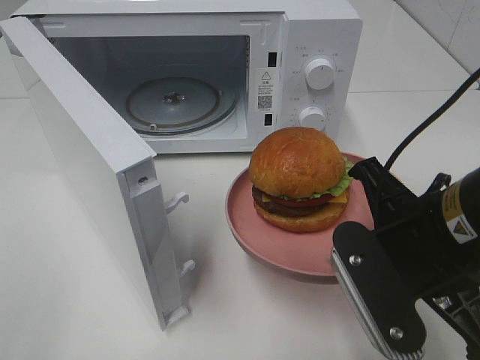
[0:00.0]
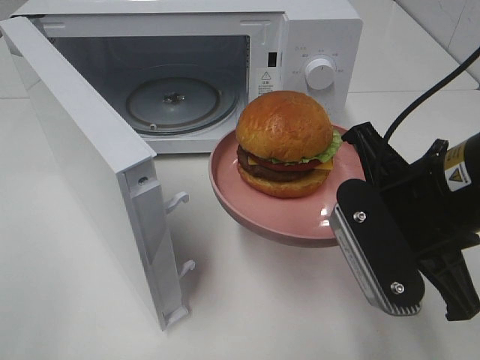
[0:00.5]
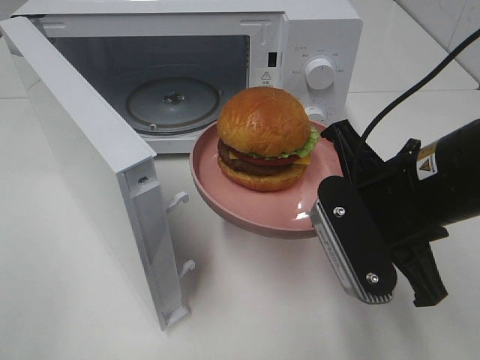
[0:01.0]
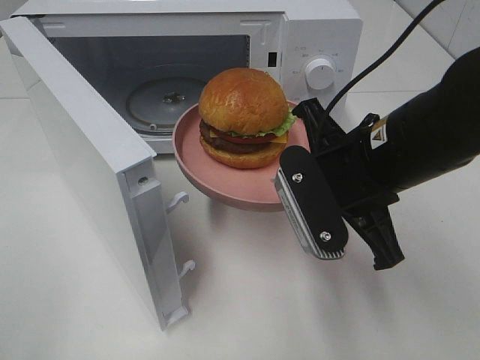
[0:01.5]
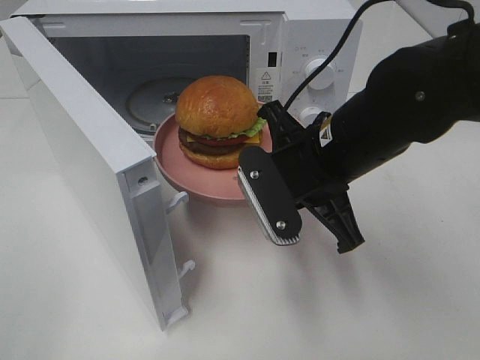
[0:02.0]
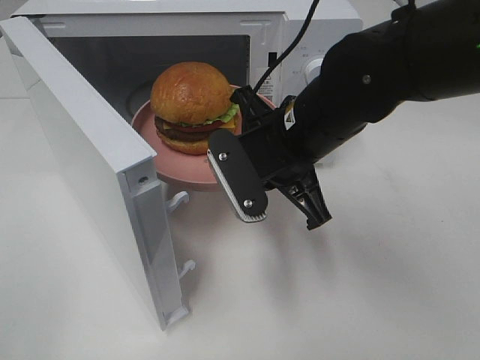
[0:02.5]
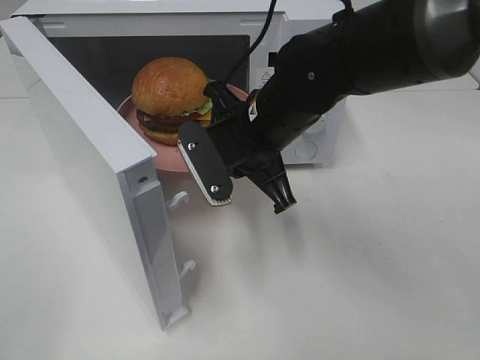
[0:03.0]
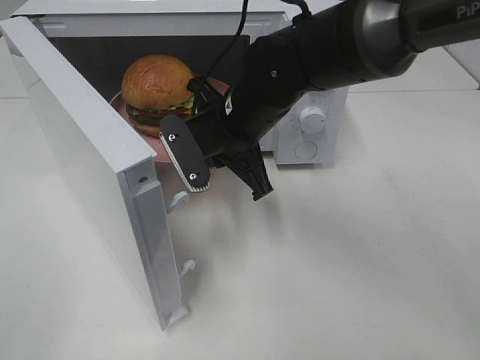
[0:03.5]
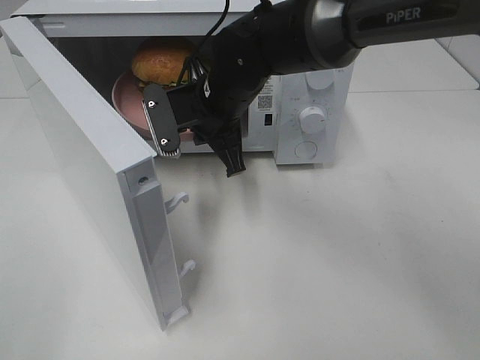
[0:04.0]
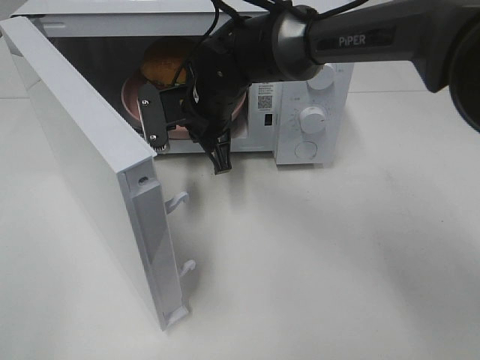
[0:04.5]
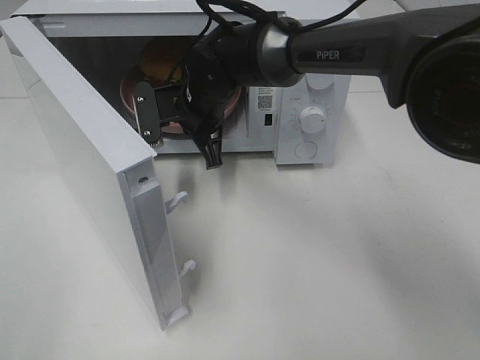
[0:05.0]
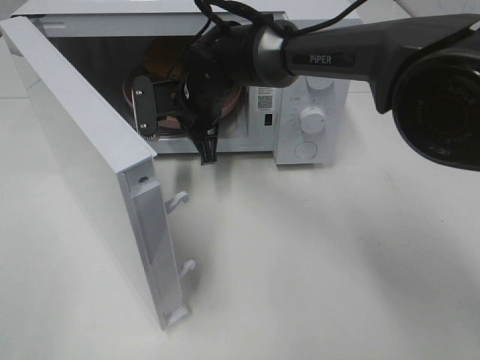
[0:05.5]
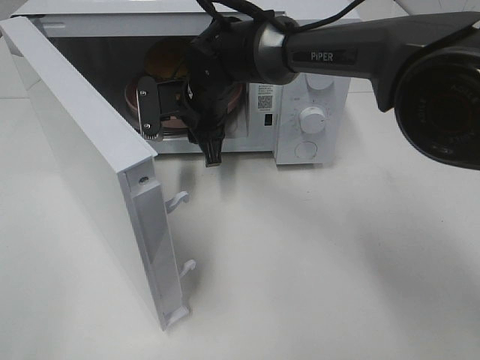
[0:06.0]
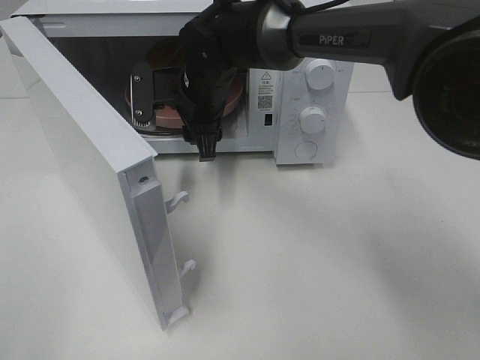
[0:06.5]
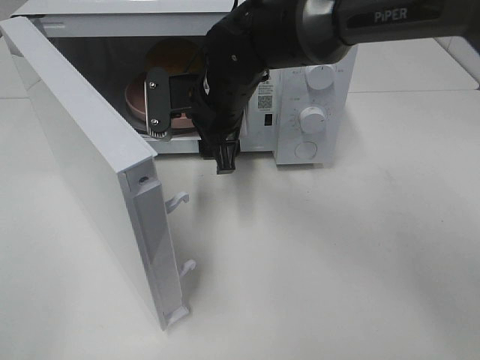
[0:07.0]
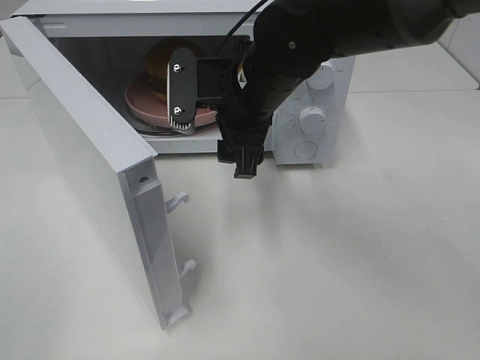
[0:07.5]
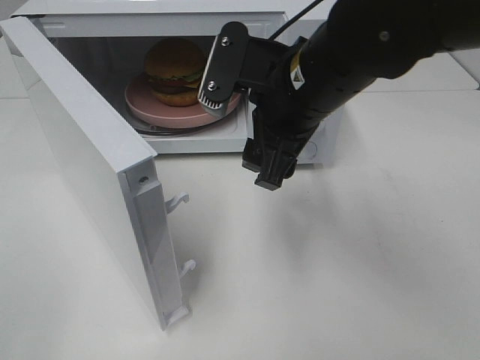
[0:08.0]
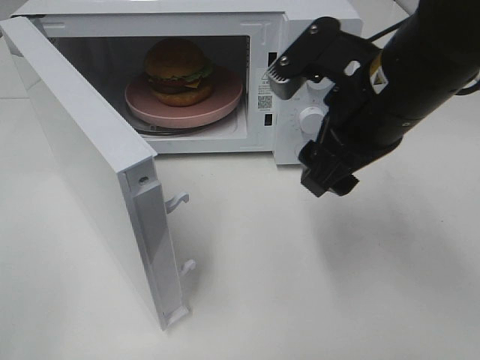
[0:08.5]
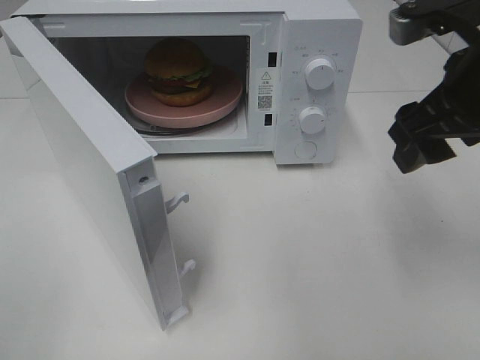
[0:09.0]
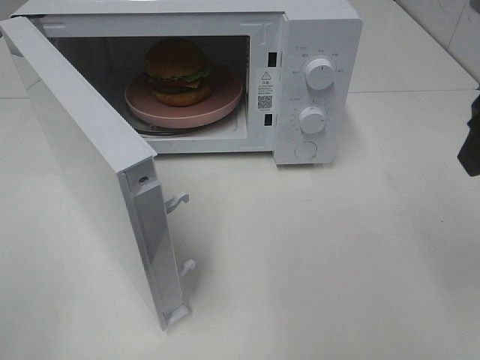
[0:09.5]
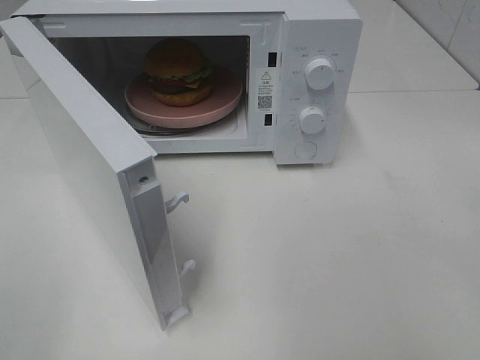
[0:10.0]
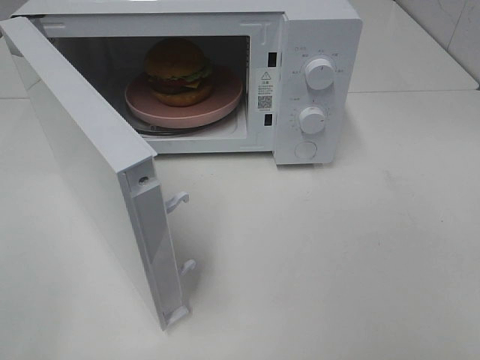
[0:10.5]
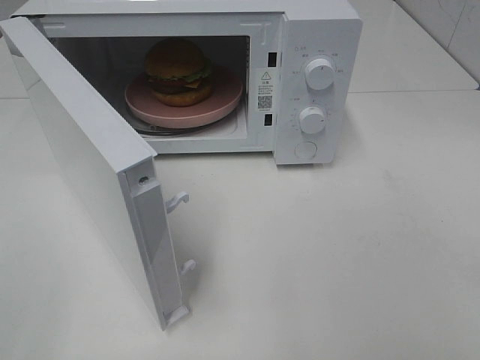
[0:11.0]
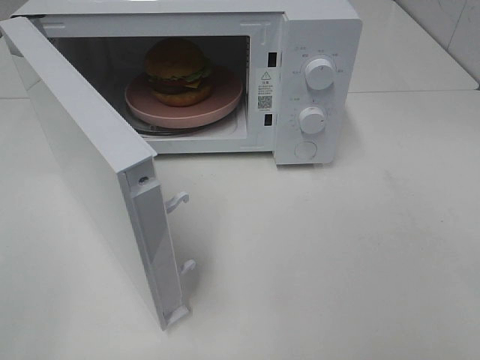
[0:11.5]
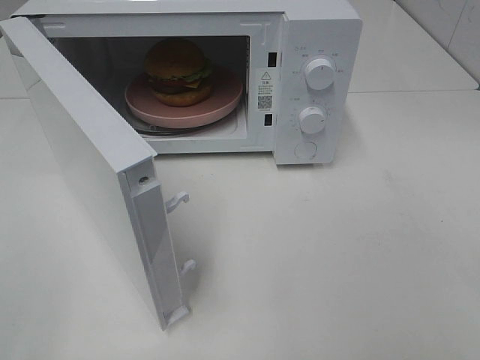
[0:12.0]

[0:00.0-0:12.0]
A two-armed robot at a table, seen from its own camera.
Task of the whole recording: Heat the burger.
Step, 0.0 to 6.5 s: Right hand: place the plate in the microwave.
0.0 to 2.0 s: The right gripper goes some 10 cm forward and to the left.
2.0 to 4.0 s: The right gripper goes about 15 cm forward and to the left.
4.0 to 6.0 s: The right gripper ends up roughly 5 cm from where it was, and opens its fingers.
6.0 to 8.0 s: The right gripper travels backward, to the right and upward by approximately 20 cm, and opens its fingers.
8.0 to 10.0 s: The right gripper travels to the right, backward and upward by approximately 30 cm.

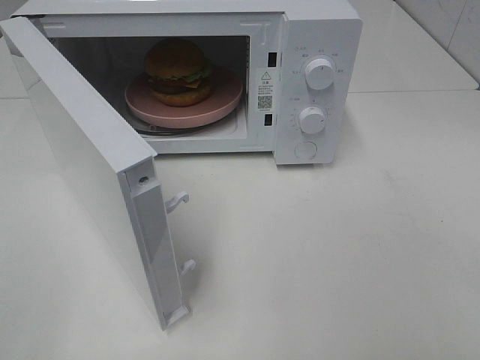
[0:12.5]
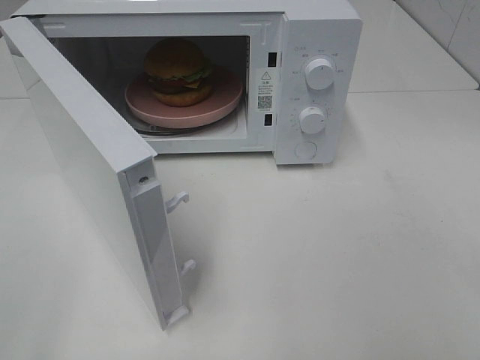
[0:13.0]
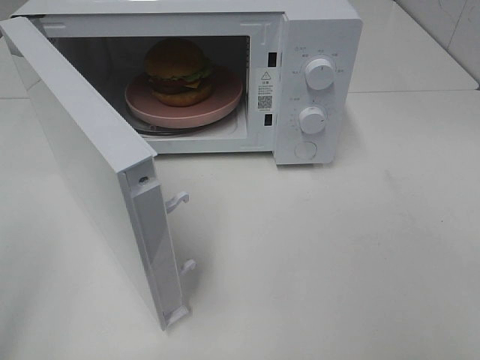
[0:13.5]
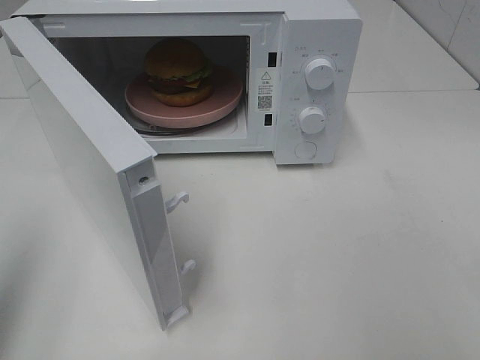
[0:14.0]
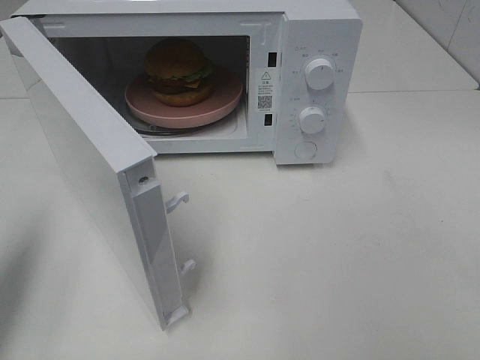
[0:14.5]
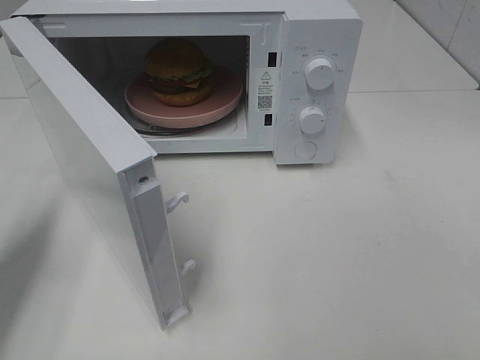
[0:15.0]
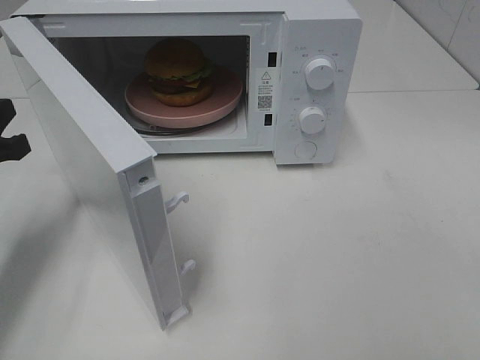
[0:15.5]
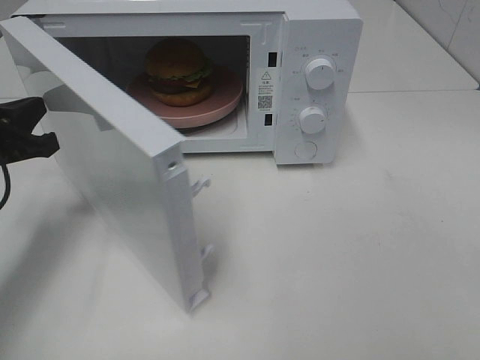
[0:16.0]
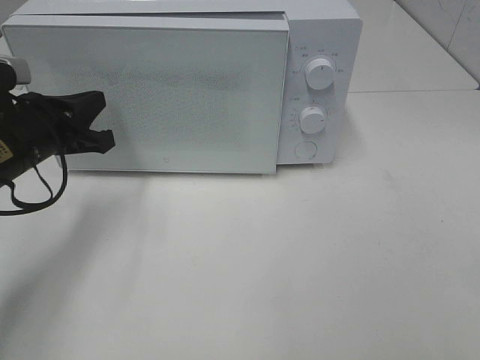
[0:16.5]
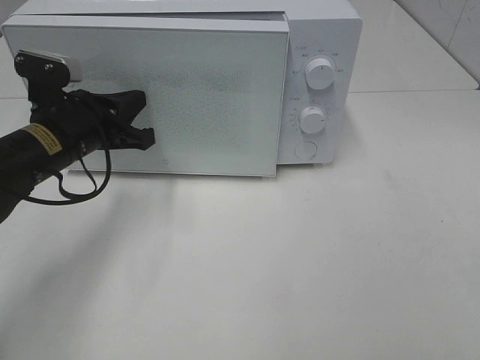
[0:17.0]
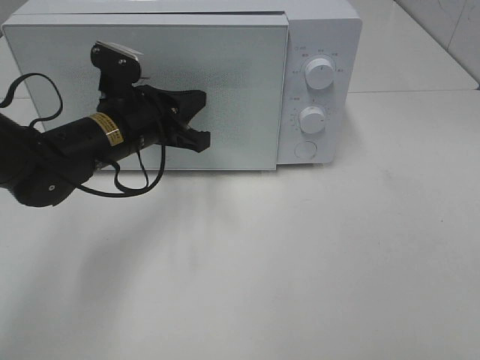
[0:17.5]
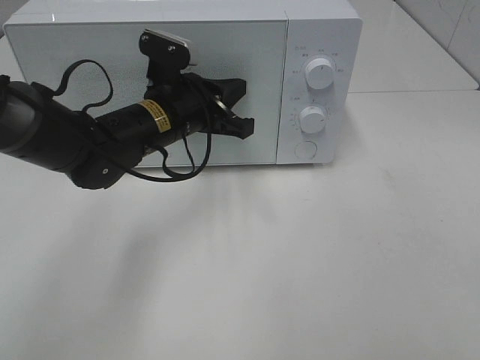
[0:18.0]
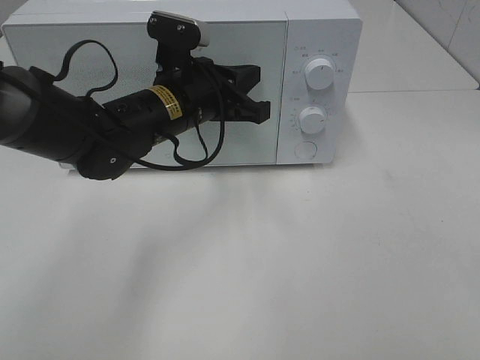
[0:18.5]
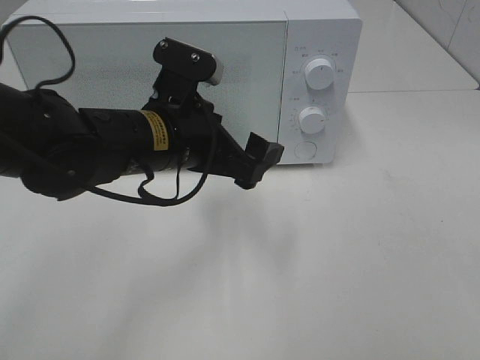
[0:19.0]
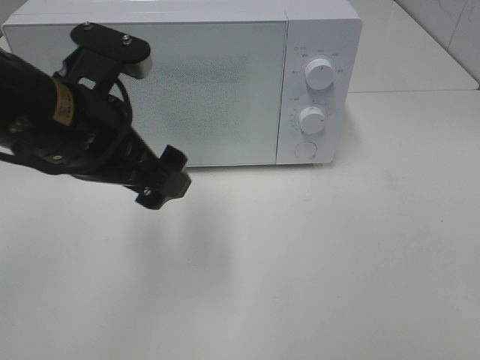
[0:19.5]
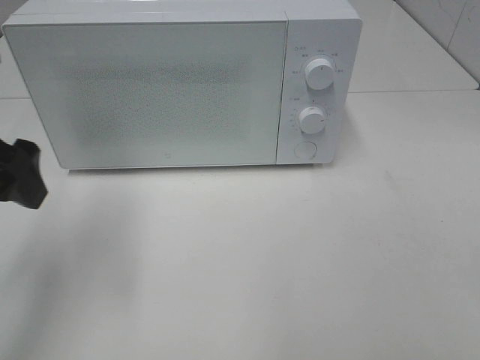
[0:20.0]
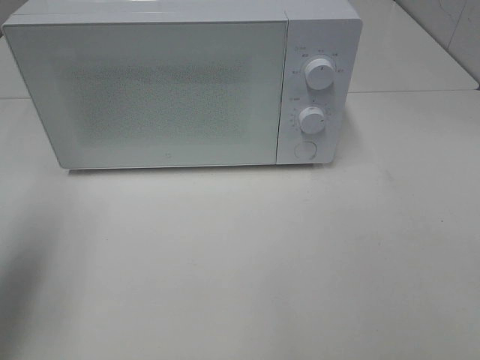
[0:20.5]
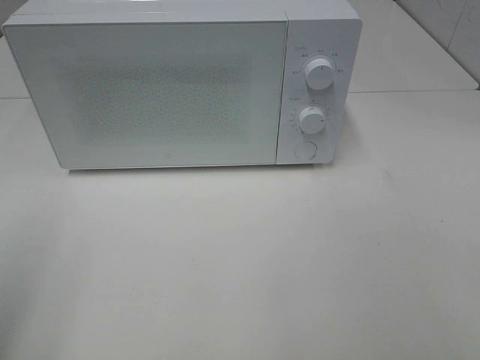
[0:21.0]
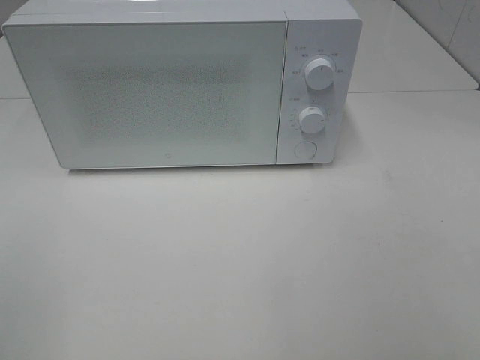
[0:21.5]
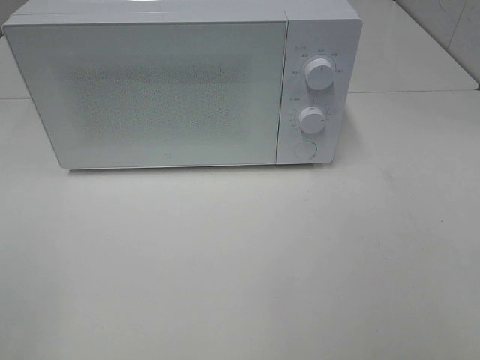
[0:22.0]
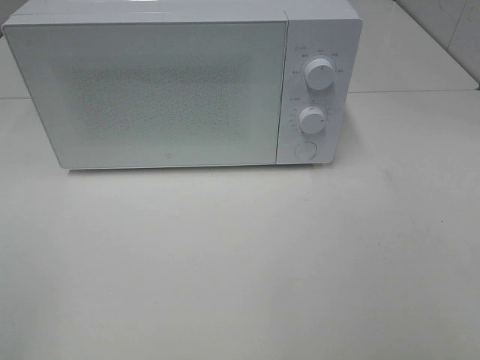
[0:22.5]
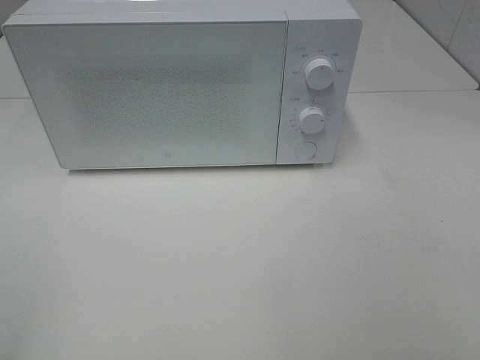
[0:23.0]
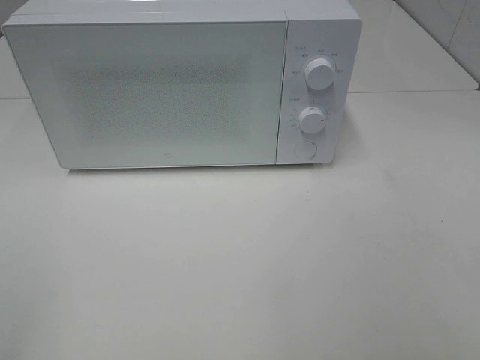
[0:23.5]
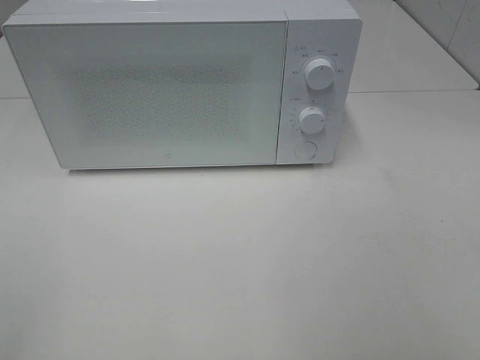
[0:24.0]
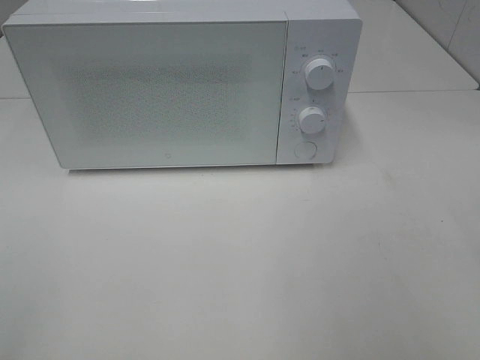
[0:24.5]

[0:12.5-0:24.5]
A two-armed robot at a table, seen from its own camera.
Task of the whole recording: Heat the burger.
Step, 12.5 to 19.0 s: Left hand: close the microwave door.
12.5 to 14.5 s: The left gripper goes approximately 15 cm forward, and closes up.
14.5 to 16.5 s: The left gripper travels forward, downward and to the right by some 20 cm.
16.5 to 18.5 s: The left gripper travels to the right by about 15 cm.
18.5 to 20.5 s: The left gripper goes some 30 cm to the left, backward and upward, and opens up.
20.5 to 22.5 s: The left gripper moves backward, about 20 cm.

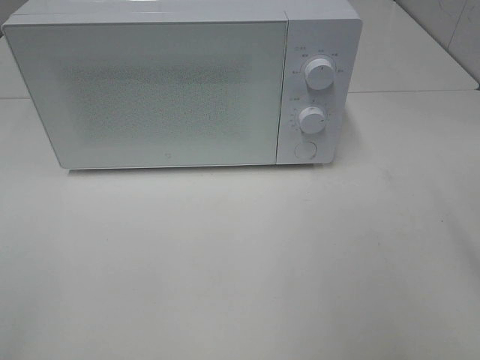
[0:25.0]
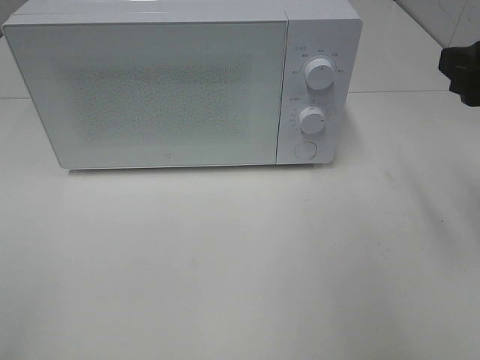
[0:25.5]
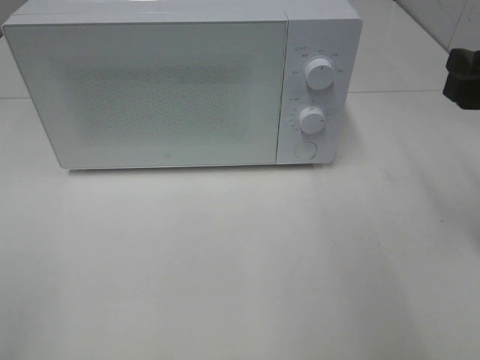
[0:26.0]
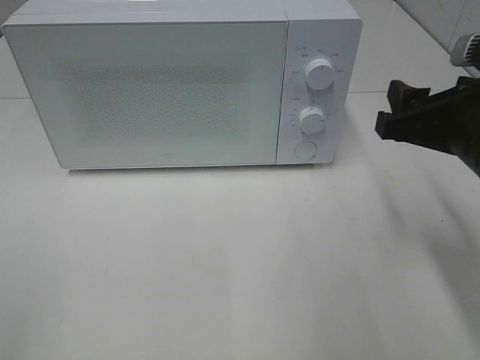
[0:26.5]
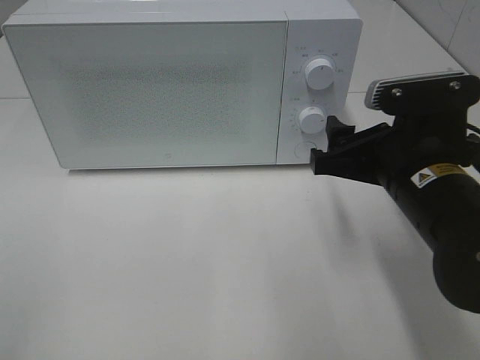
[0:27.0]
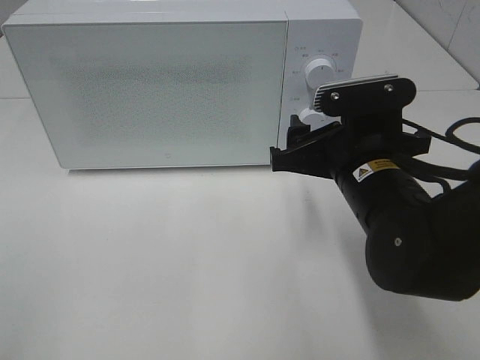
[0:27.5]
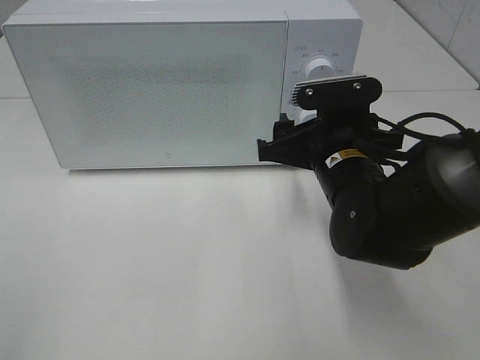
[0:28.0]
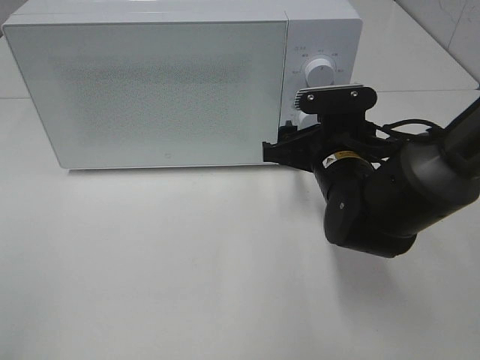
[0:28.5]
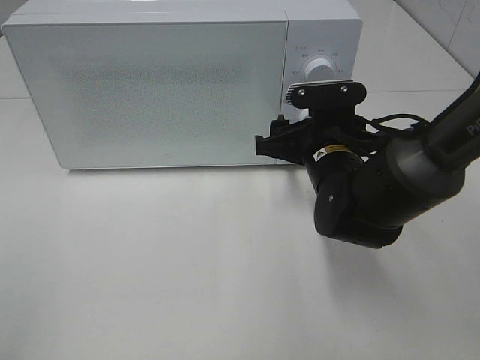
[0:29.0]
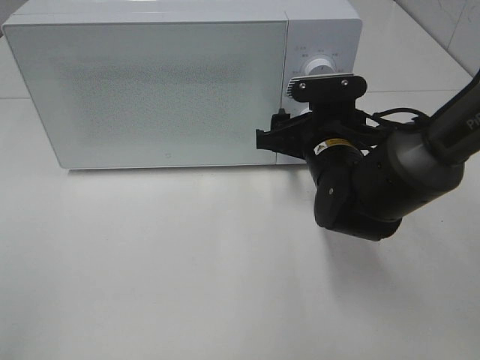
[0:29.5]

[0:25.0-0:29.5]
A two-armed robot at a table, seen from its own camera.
Task of the whole recording: Heat the burger.
25.0 to 27.0 s: The right gripper shifts about 20 cm downward, to the left and forward.
27.0 to 29.5 s: The right gripper goes roughly 10 cm forward and downward.
